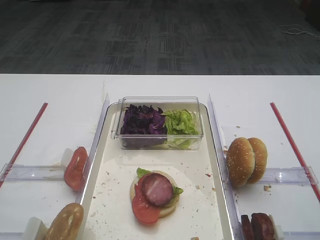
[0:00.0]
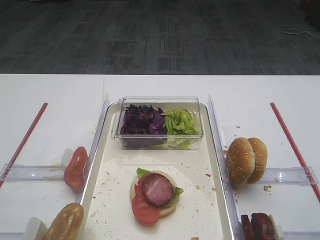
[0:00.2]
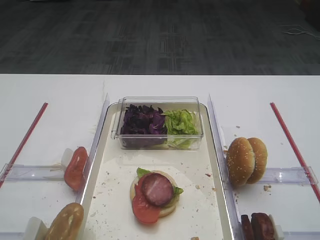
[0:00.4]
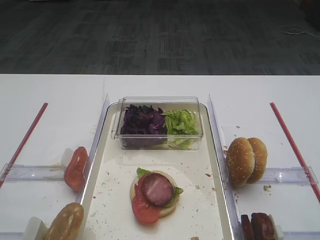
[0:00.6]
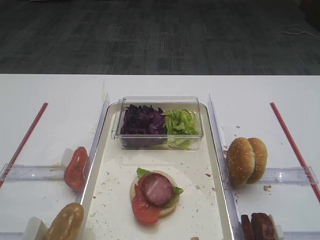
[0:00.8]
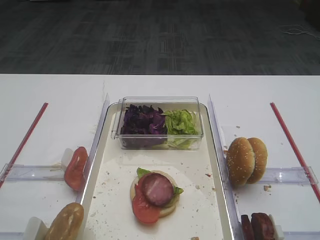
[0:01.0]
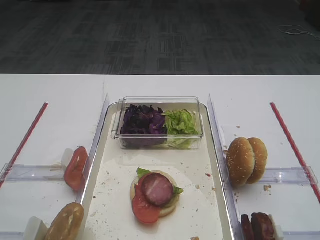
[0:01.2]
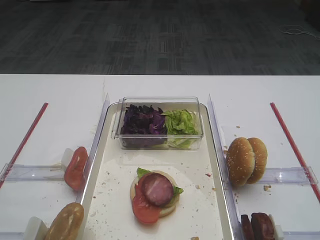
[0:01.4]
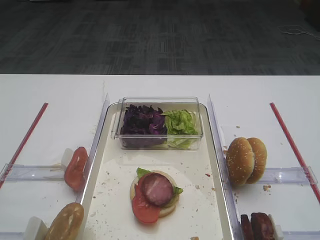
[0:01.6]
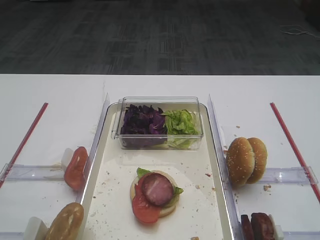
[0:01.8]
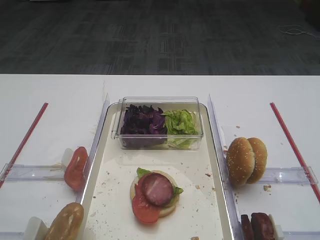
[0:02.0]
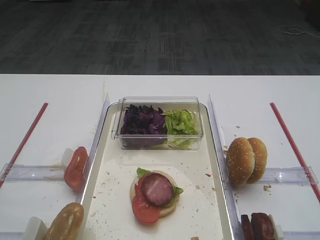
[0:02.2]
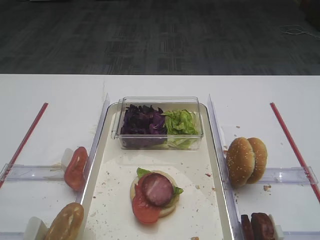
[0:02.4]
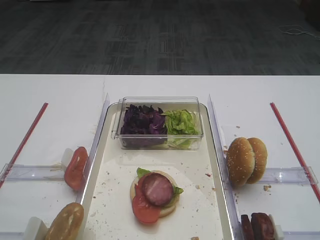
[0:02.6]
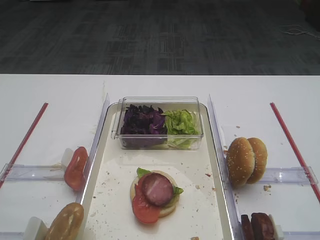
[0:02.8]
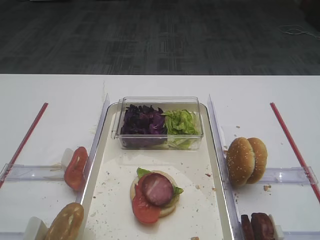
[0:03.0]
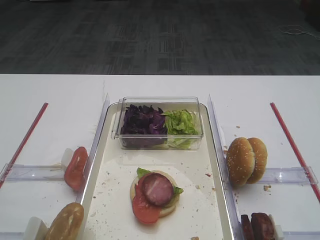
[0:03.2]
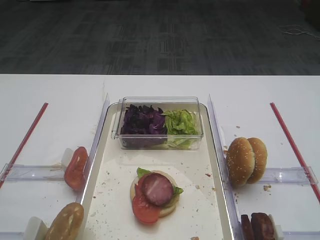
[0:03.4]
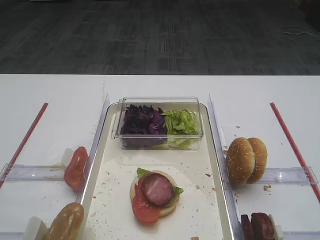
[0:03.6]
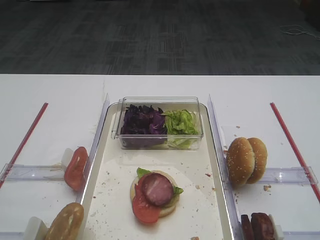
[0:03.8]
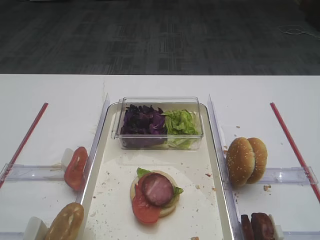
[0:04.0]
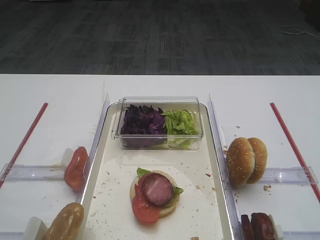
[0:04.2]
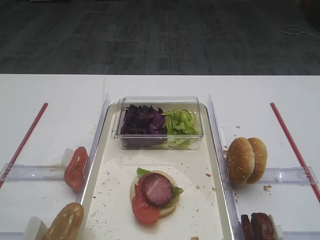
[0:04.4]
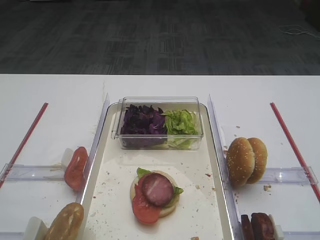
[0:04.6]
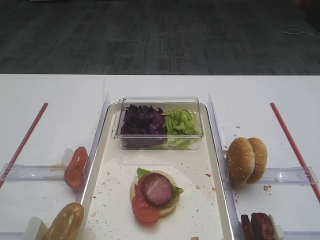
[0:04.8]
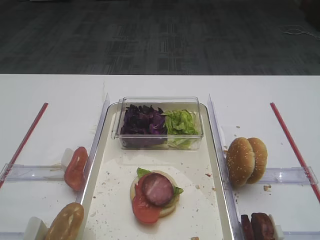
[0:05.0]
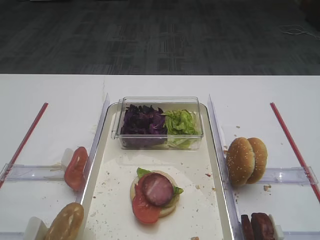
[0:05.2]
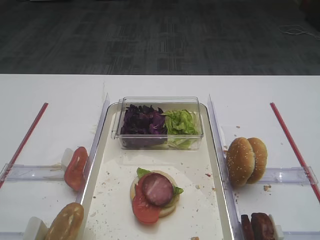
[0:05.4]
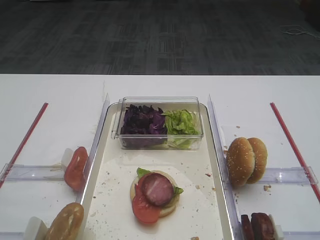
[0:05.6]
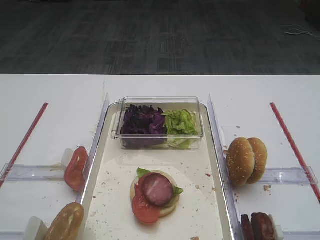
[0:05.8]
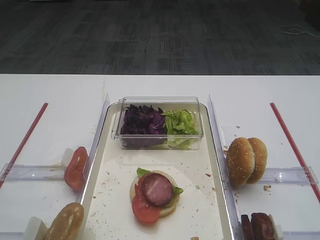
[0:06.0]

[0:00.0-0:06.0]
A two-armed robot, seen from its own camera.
0:01.6 to 0:06.0: Both grippers stay about where they are.

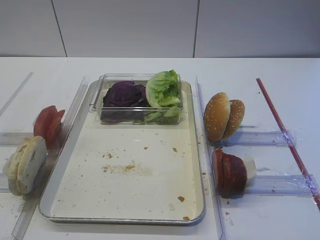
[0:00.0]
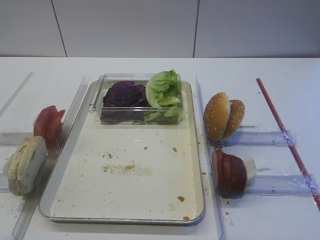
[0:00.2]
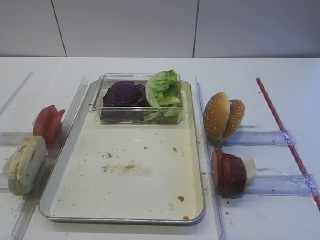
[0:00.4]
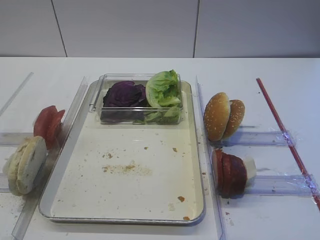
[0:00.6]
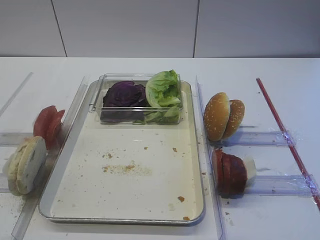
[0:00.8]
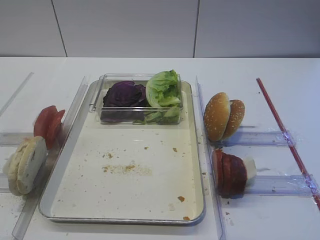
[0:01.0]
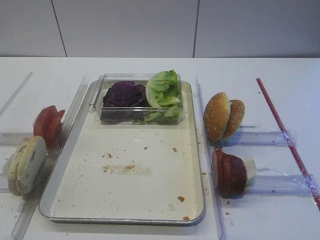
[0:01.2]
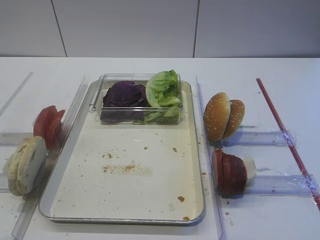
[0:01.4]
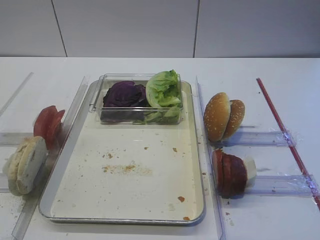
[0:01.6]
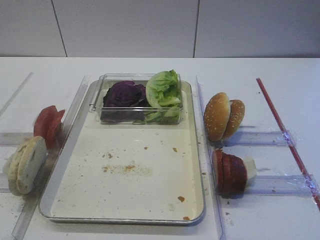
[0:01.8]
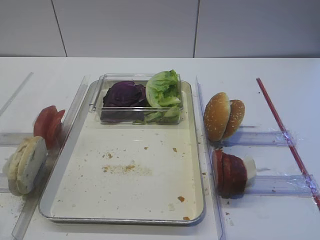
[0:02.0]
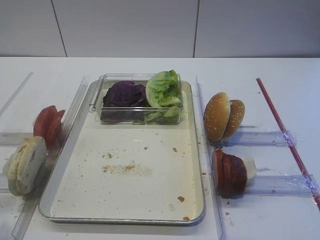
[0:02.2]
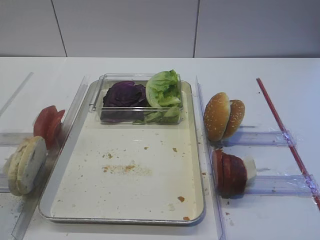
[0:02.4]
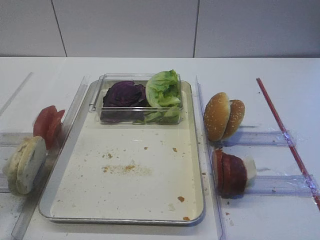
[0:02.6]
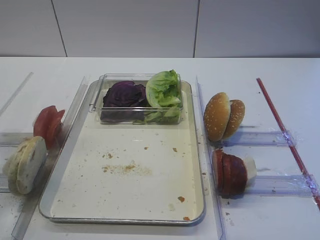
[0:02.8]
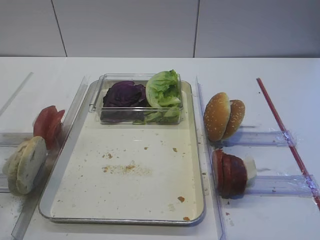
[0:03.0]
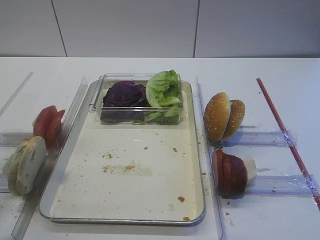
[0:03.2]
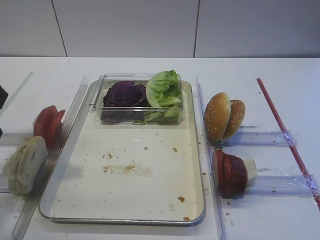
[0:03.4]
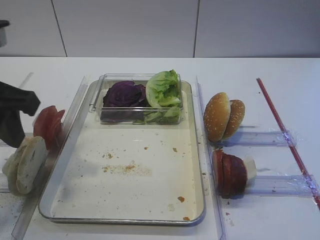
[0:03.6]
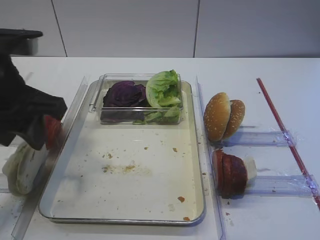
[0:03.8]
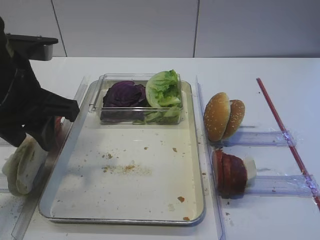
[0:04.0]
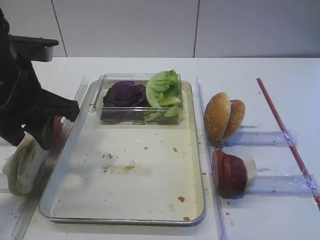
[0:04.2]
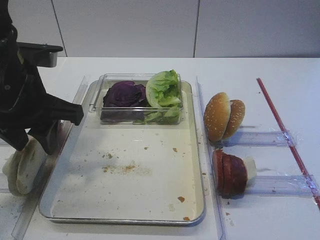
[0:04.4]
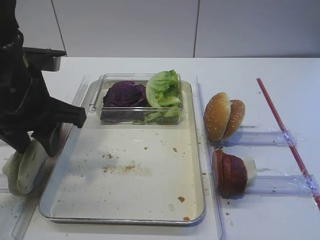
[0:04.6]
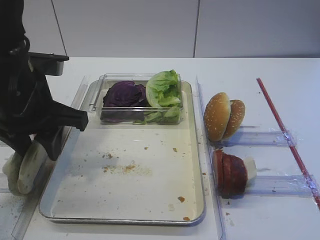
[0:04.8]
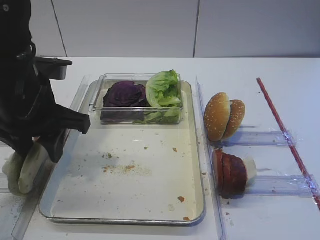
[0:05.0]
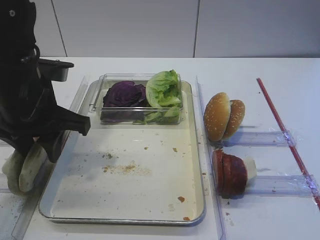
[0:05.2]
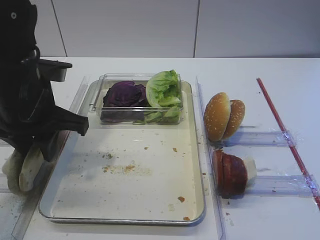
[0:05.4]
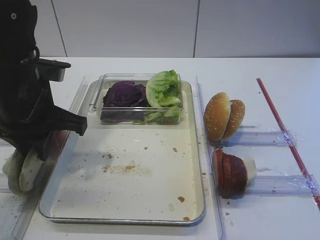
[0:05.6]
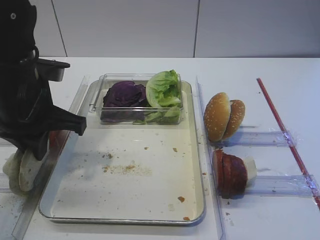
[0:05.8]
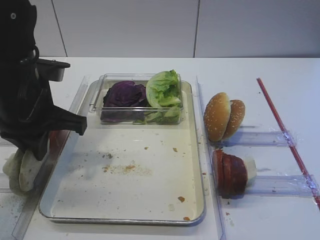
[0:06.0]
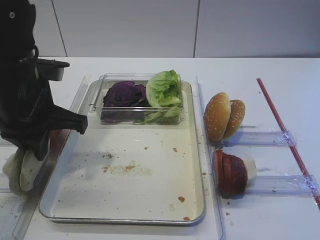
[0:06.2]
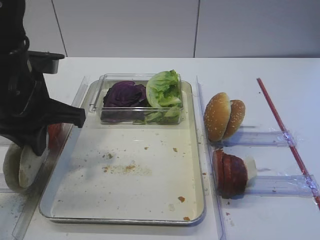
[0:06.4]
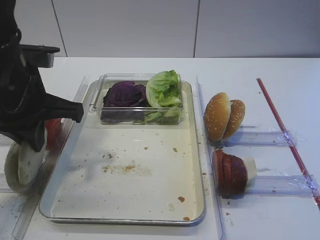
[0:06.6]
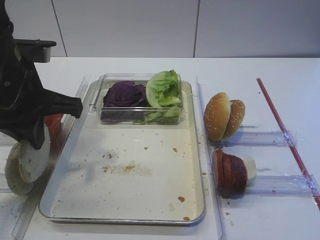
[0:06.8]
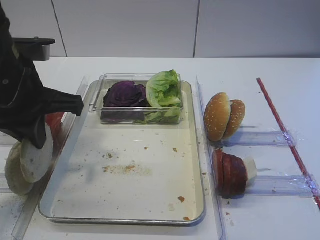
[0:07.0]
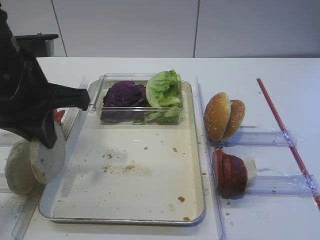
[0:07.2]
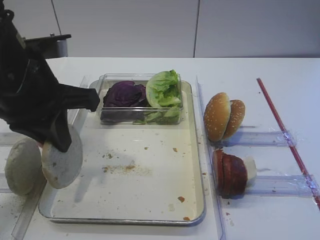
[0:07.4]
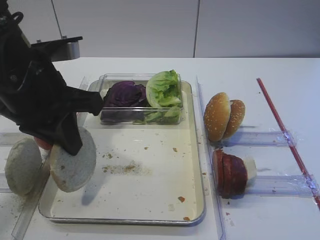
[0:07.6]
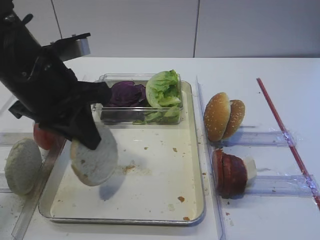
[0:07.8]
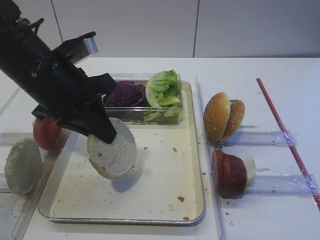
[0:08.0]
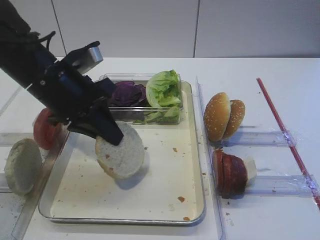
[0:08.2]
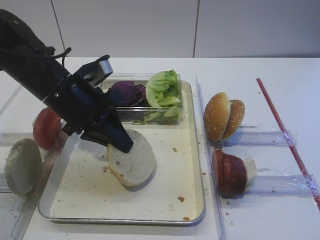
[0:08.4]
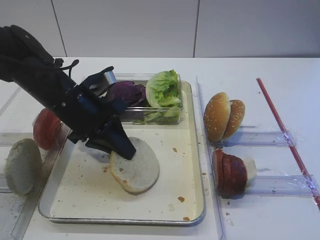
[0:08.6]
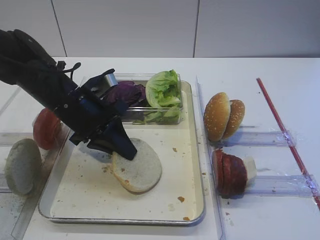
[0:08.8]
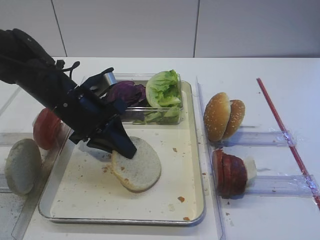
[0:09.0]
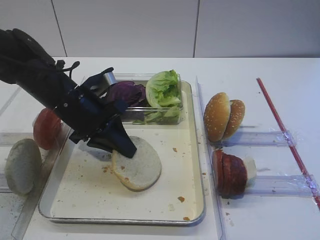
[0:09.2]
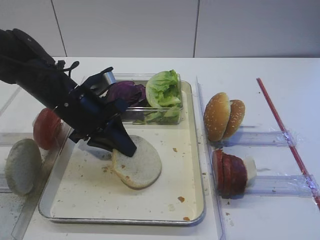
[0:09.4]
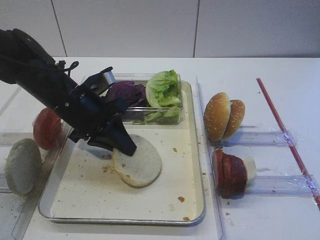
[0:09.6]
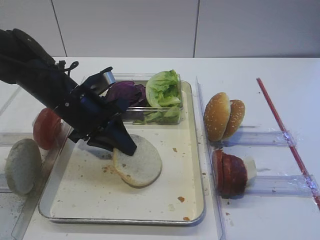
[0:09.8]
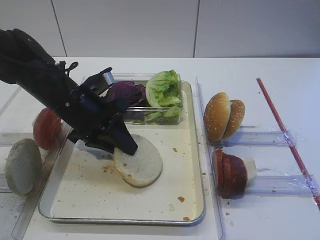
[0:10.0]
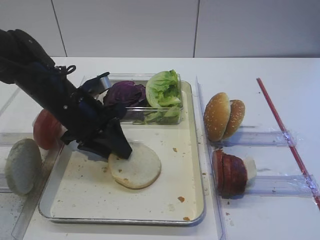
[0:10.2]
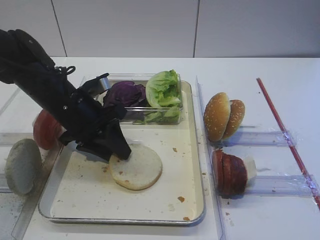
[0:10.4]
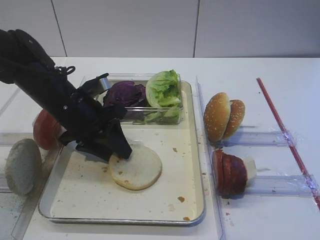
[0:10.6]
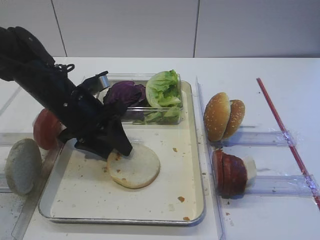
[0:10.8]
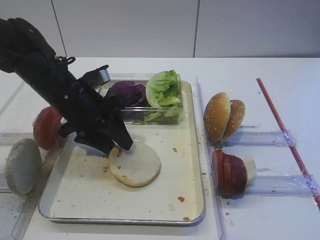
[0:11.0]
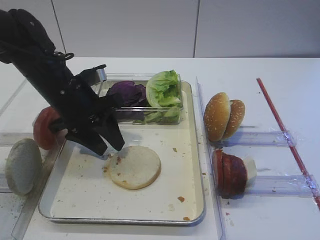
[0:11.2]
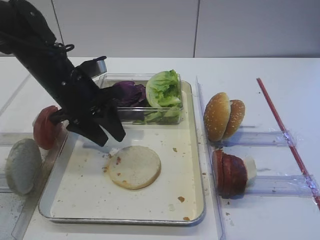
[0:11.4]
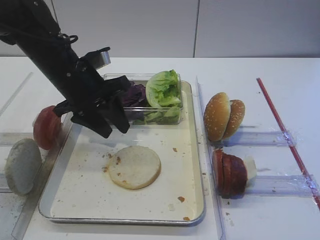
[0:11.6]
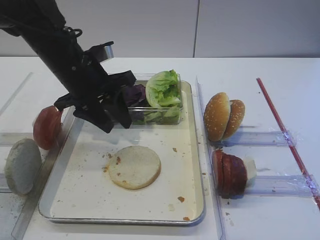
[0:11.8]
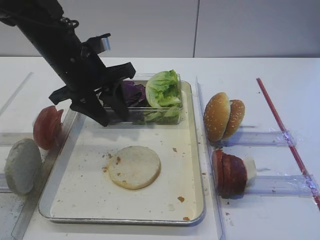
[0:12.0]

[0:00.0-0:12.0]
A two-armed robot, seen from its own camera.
Step, 0:00.0 to 0:06.6: Pick up the bread slice with the left gripper.
Step, 0:06.8 to 0:11.4: Place the bread slice on the tray with the left gripper.
0:01.6 to 0:03.0: The left gripper moves forward, about 15 cm.
0:03.0 to 0:04.4: The left gripper goes approximately 10 cm to the right and forward.
0:04.4 to 0:06.0: The left gripper closes its fingers.
0:06.0 to 0:07.6: The left gripper moves roughly 5 cm.
0:07.6 to 0:09.0: The left gripper goes about 15 cm downward and forward.
0:09.0 to 0:10.4: The left gripper opens.
0:10.4 to 0:12.0: The left gripper goes approximately 5 cm upward.

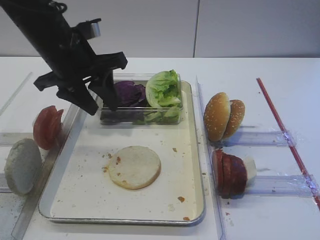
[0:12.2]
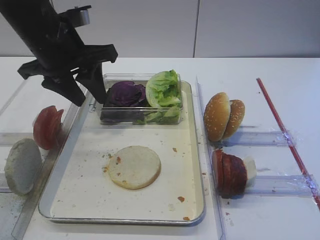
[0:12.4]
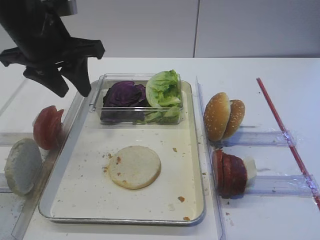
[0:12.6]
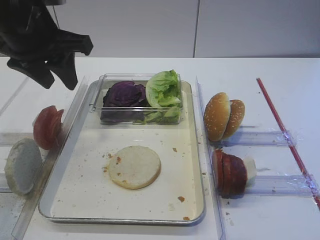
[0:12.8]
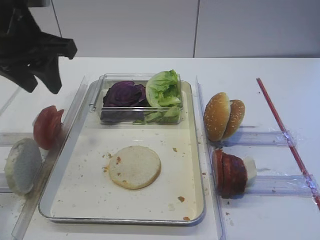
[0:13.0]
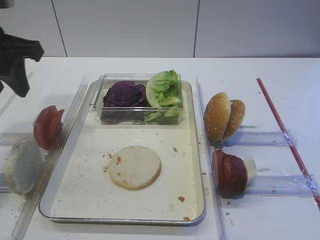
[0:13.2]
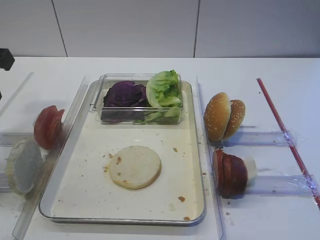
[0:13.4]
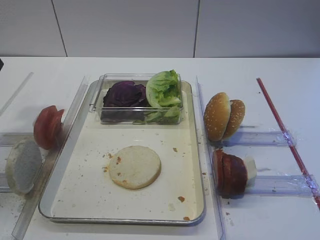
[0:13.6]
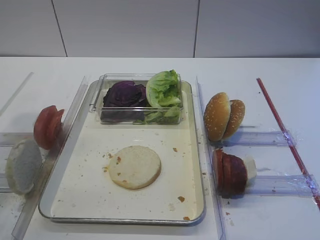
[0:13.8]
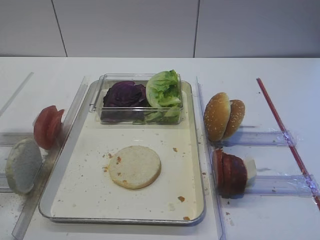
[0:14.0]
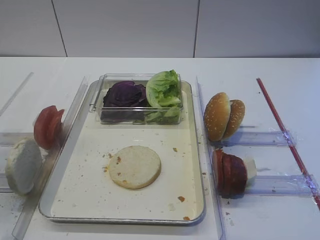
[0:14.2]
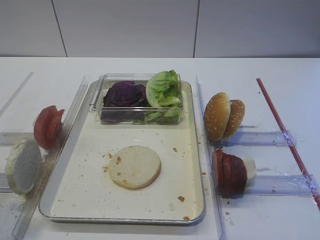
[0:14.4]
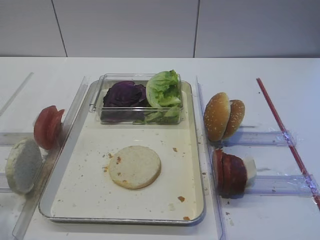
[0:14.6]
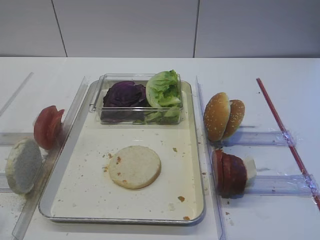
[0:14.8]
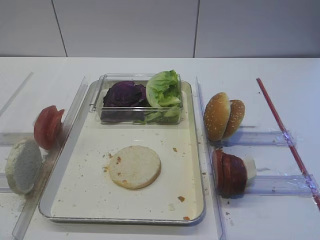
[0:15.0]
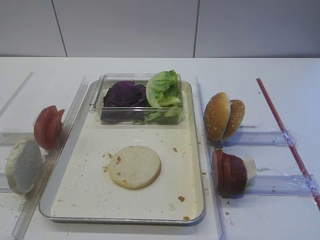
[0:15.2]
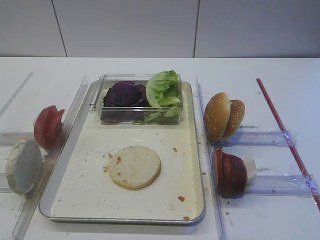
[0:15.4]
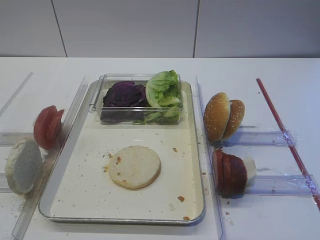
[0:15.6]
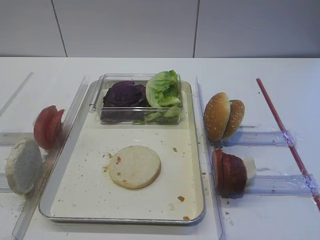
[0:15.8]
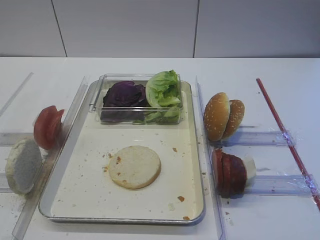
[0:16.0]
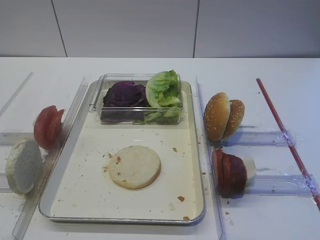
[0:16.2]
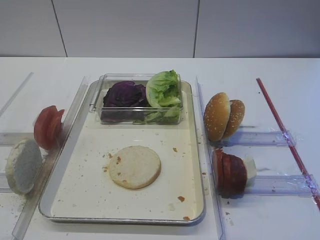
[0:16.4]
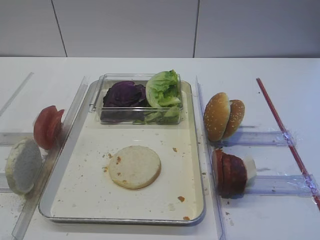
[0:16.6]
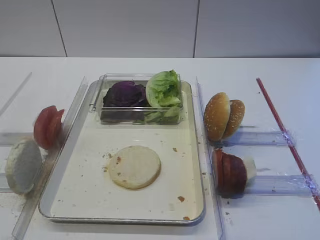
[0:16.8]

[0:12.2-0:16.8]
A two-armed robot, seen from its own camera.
0:12.2 to 0:13.8: The left gripper shifts approximately 20 cm to the left, backward and upward.
0:13.8 to 0:15.2: The left gripper is displaced backward by approximately 20 cm.
